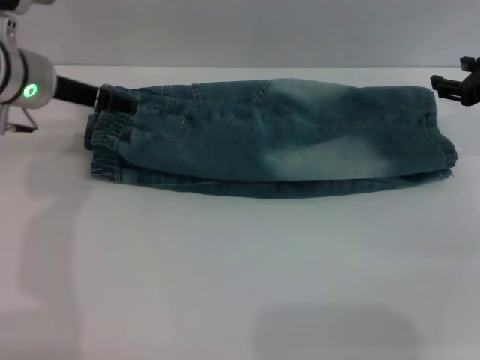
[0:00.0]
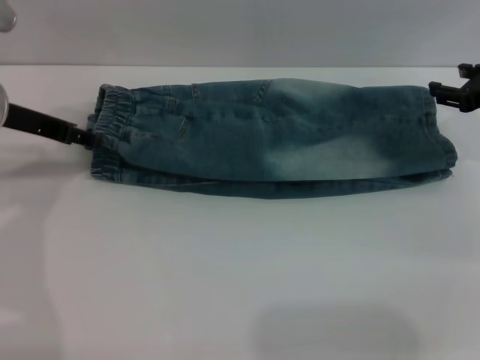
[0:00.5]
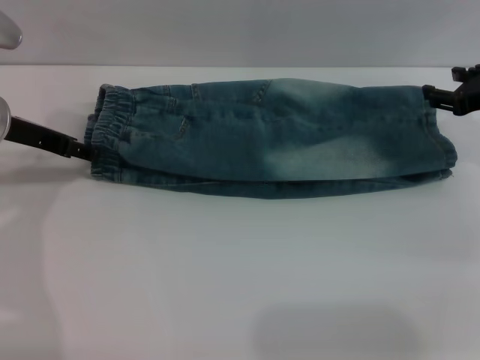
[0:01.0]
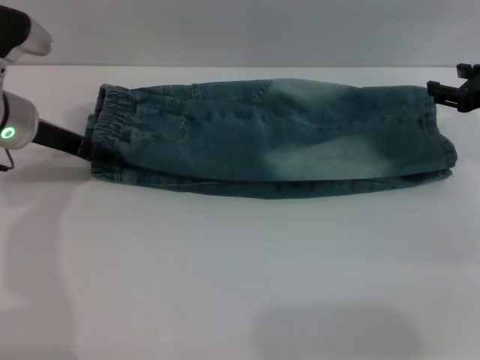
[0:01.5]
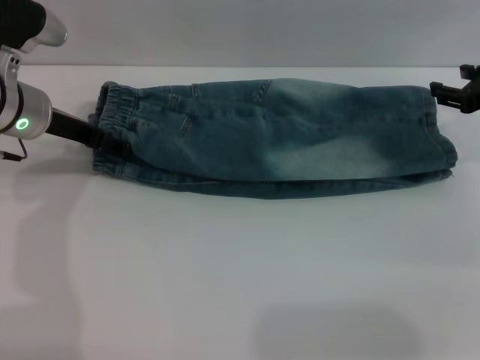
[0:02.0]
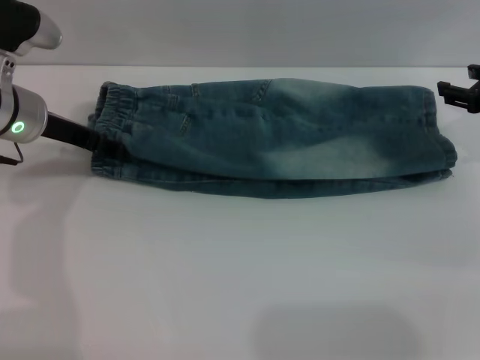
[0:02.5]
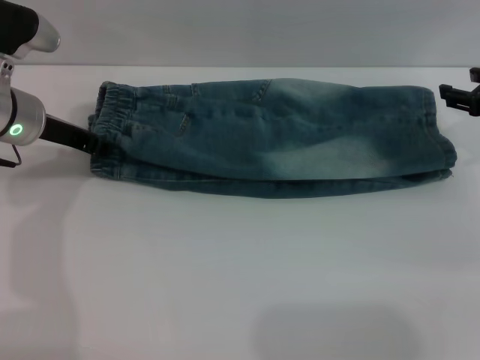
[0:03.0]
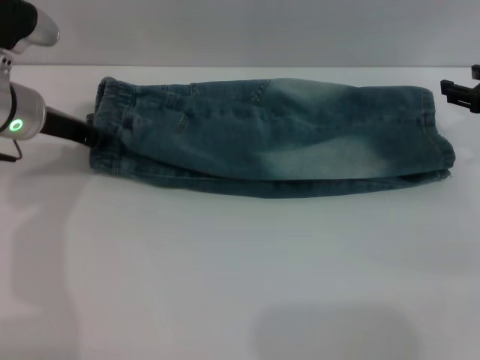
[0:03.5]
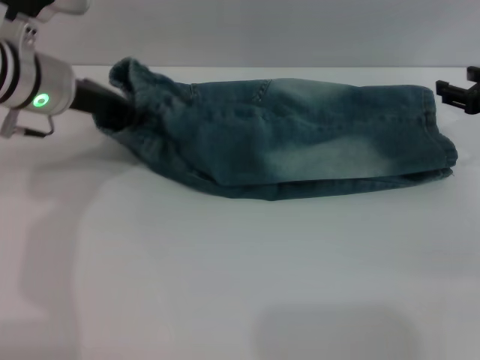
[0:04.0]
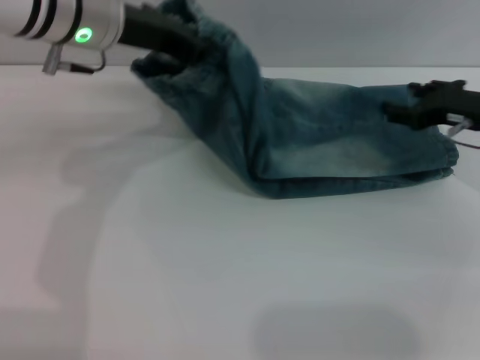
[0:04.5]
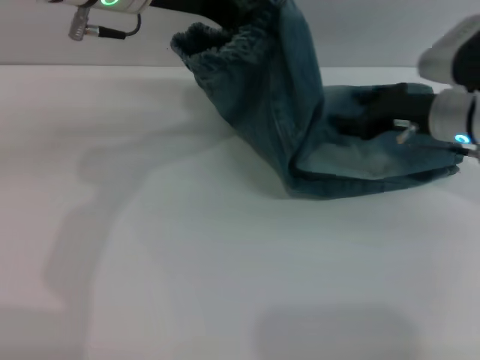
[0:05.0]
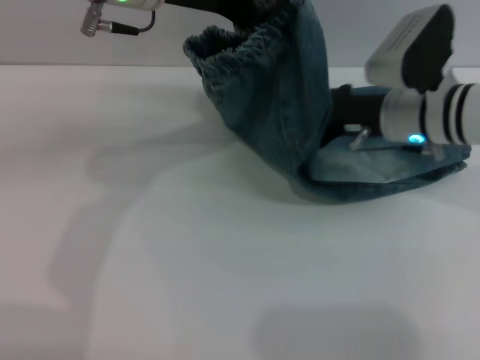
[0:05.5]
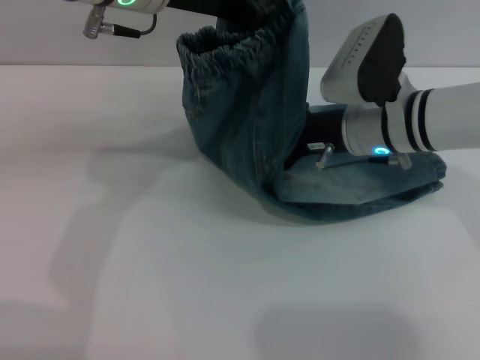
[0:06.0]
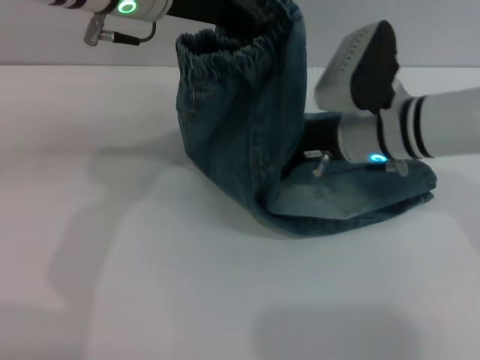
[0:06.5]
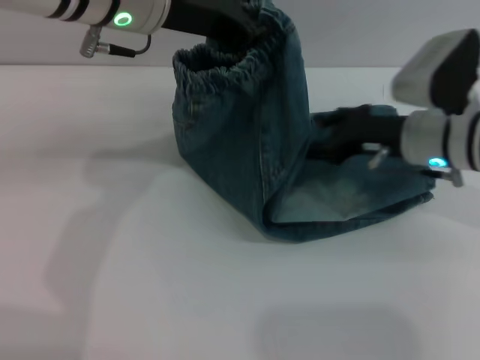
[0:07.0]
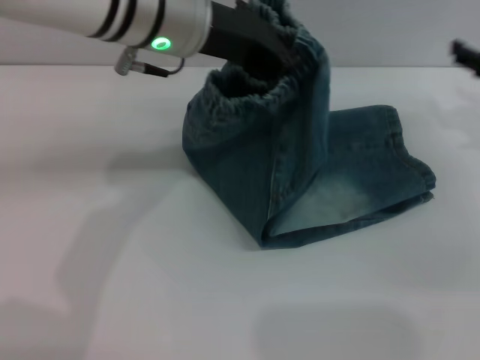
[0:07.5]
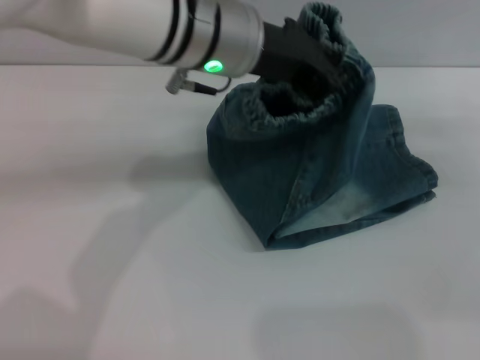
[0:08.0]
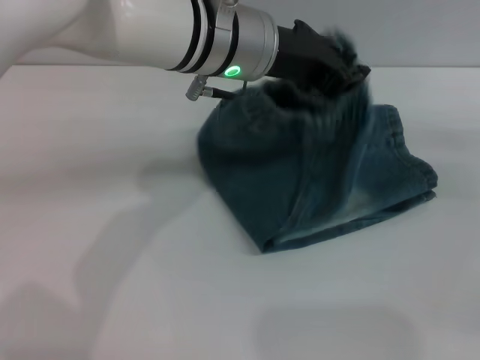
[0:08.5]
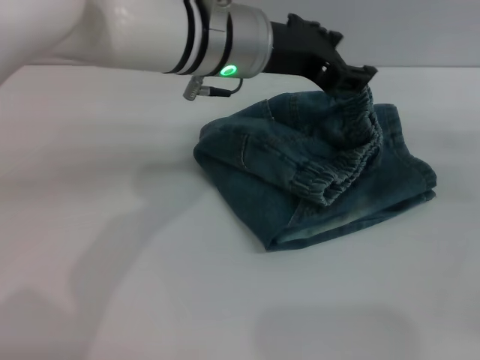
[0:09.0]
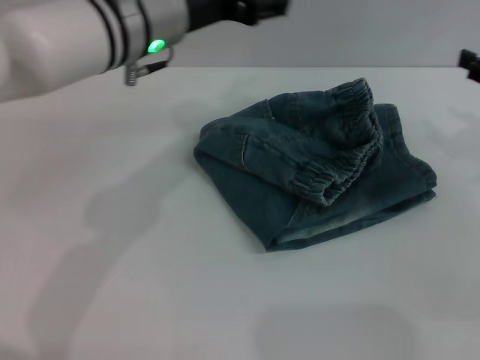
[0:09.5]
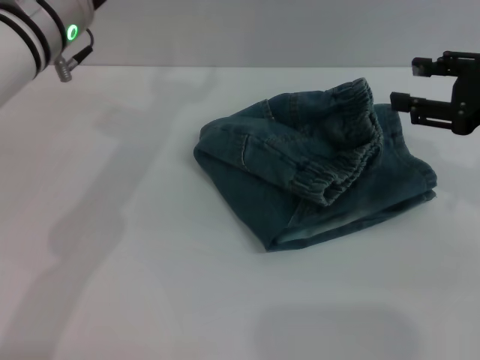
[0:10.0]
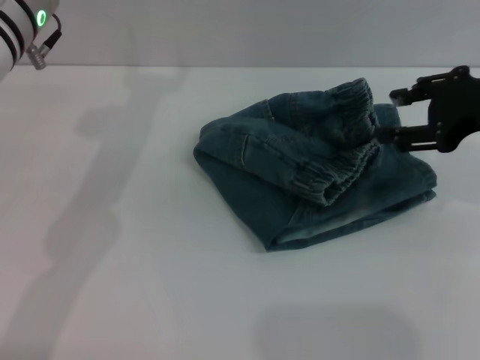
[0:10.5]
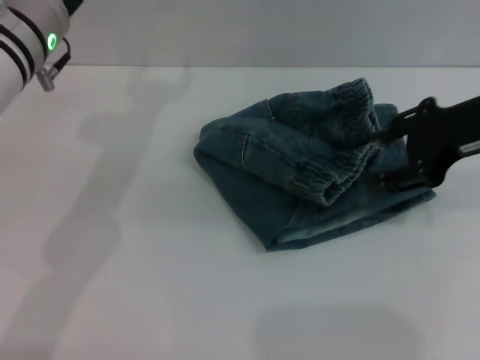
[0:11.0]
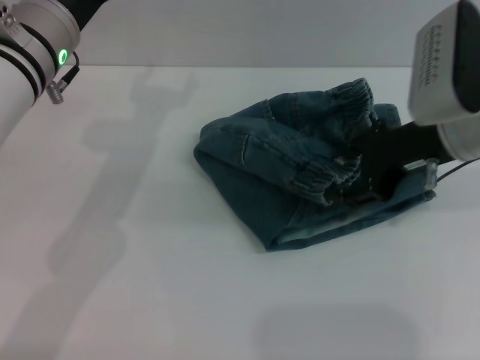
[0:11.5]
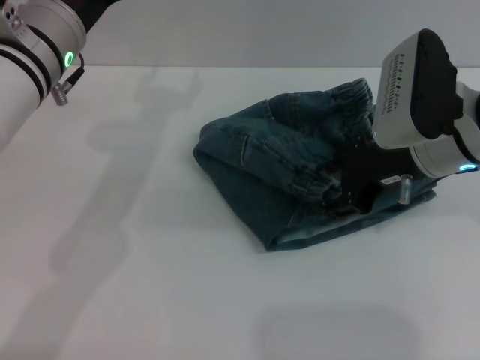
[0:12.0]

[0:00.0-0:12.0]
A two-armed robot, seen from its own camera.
Step, 0:00.5 to 0:09.0: Fold the pants from left to right with the left gripper.
0:00.0 to 0:02.0: The grippers make only small movements.
0:02.0 to 0:04.0: The left gripper changes place by some 5 cm, and closes.
0:04.0 to 0:06.0: The left gripper is displaced upward and to the right by about 15 cm. The right gripper shifts some 20 cm to the left.
0:06.0 to 0:08.0: The left gripper is displaced to the right by about 5 cm, while the right gripper goes some 25 cm to the right.
0:08.0 to 0:10.0: The right gripper goes some 10 cm to the left. The left gripper moves to the left, approximately 10 cm, and opens up.
0:10.0 to 0:12.0: The right gripper is displaced to the left by approximately 10 cm.

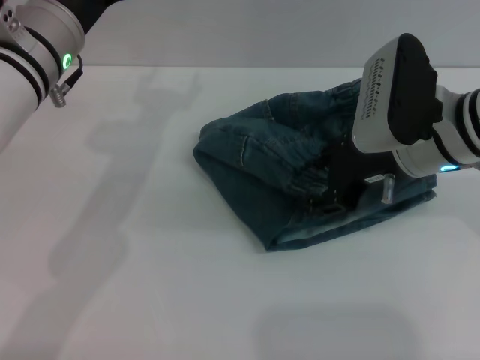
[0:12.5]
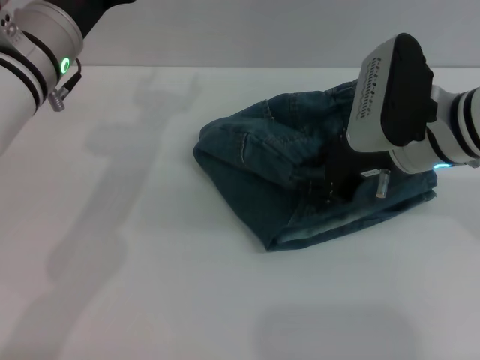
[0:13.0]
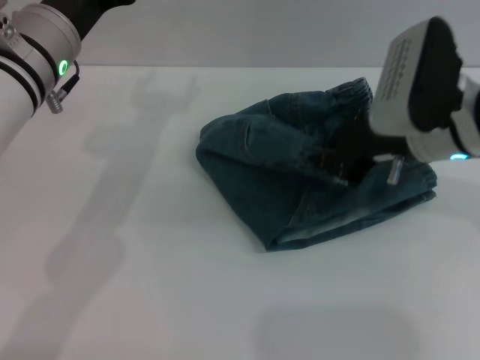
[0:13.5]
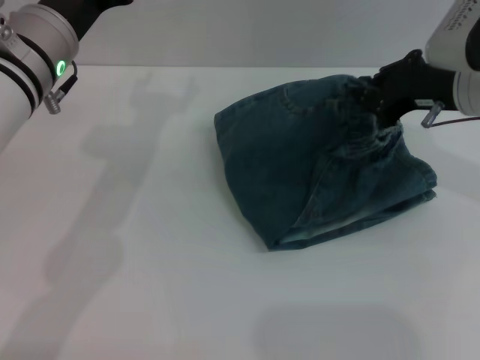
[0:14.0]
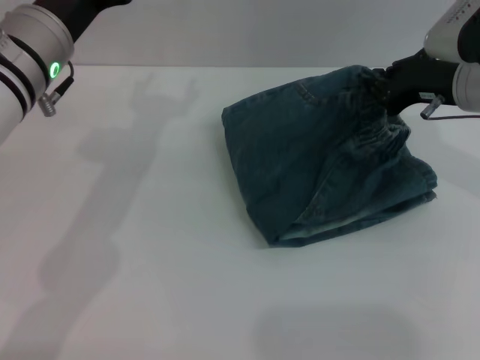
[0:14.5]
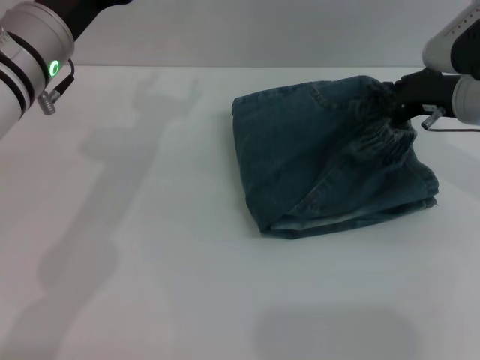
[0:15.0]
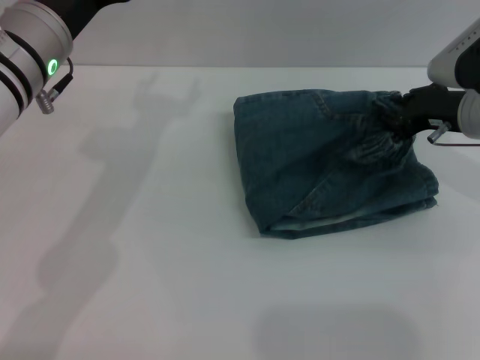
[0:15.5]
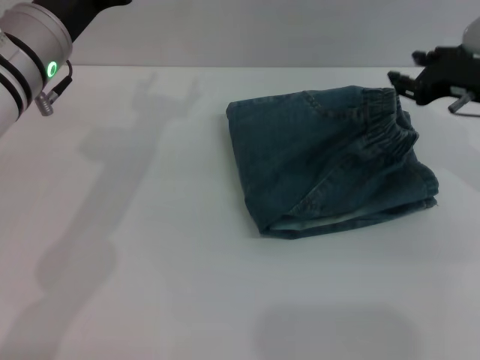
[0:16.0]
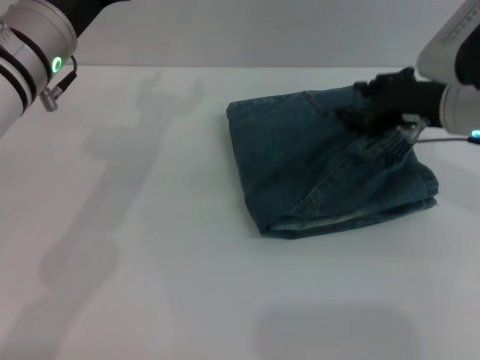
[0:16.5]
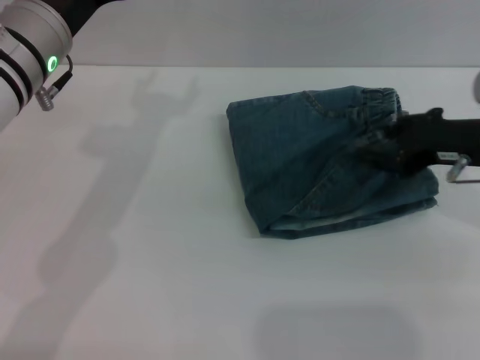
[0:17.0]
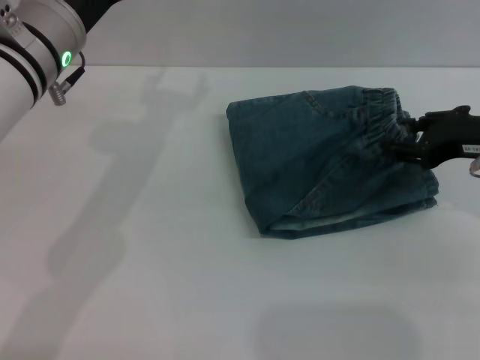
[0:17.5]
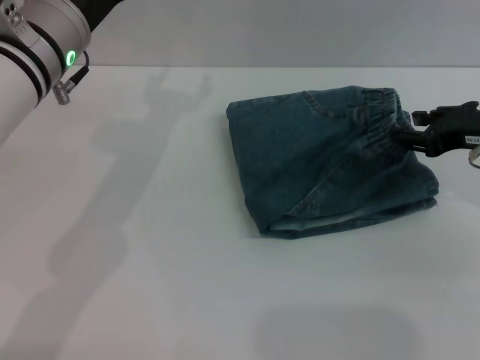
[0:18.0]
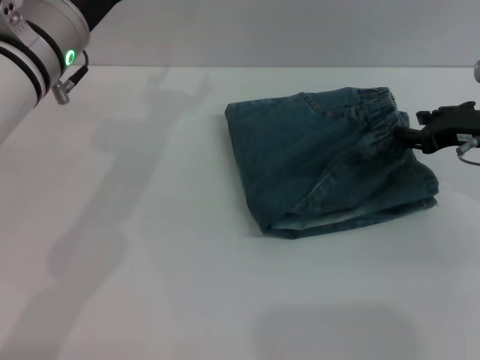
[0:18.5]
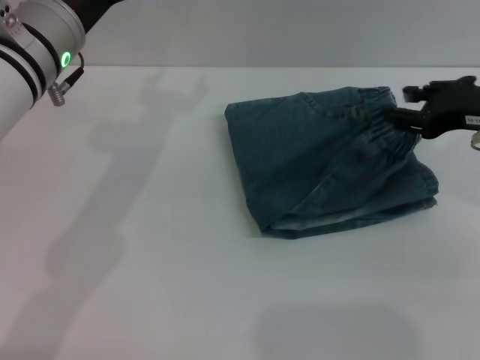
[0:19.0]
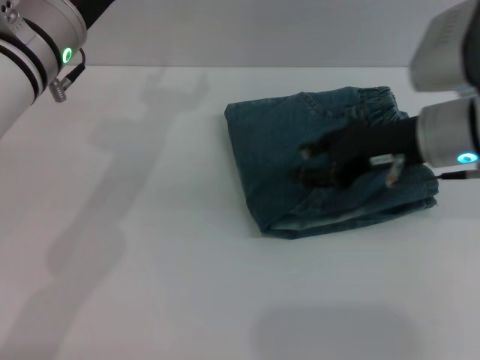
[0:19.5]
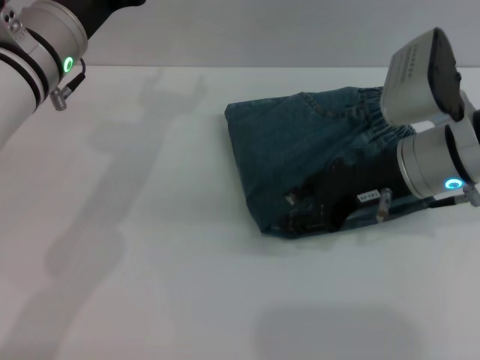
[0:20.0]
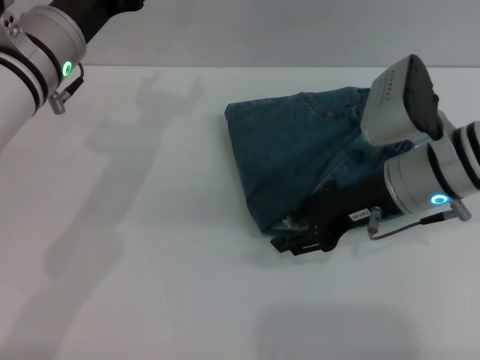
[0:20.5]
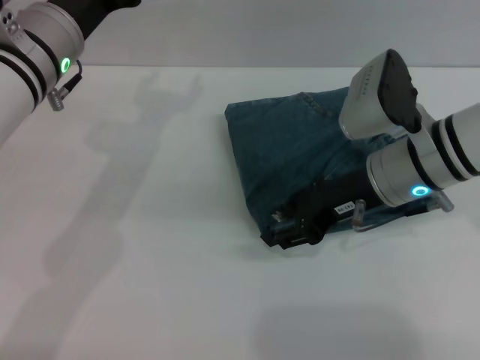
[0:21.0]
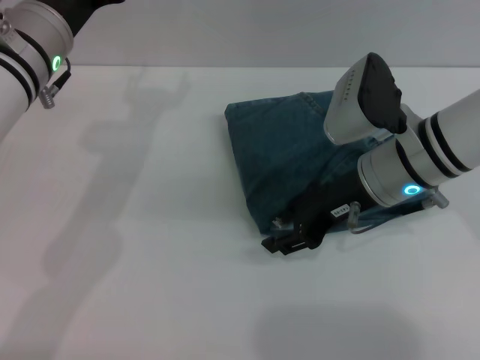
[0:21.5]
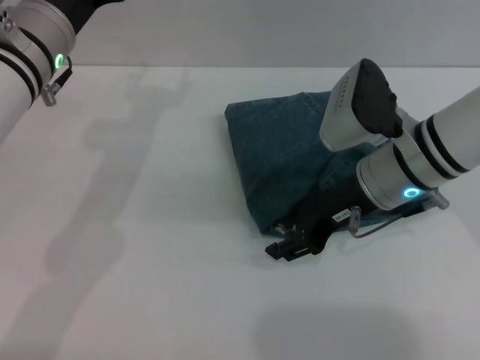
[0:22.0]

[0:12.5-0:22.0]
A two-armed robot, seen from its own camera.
0:12.5 to 0:14.5: The right gripper shifts about 5 cm to the right, and closes up.
0:14.5 to 0:16.5: The right gripper opens up.
0:16.5 to 0:18.0: The right gripper travels to the right by some 5 cm.
0:18.0 to 0:20.0: The right gripper is displaced to the left by some 10 cm.
0:20.0 to 0:22.0: The grippers stay close to where they were, moving slightly.

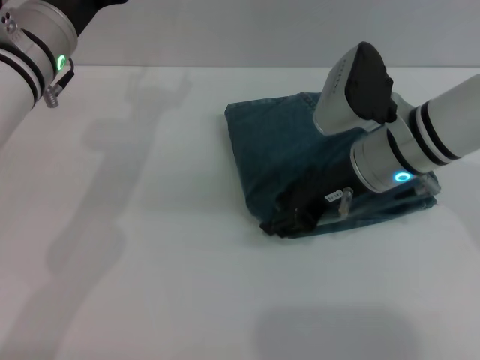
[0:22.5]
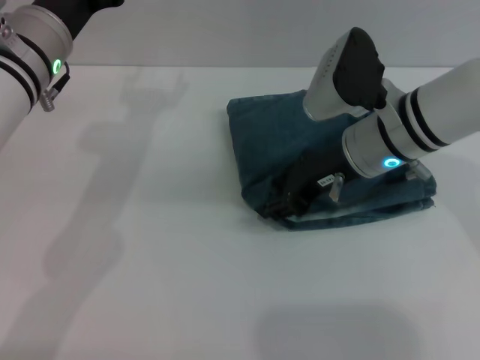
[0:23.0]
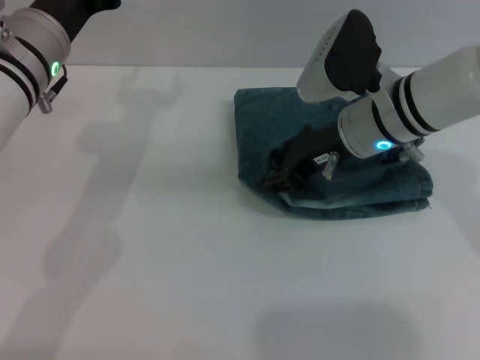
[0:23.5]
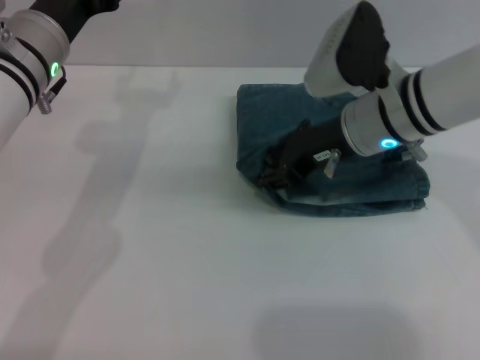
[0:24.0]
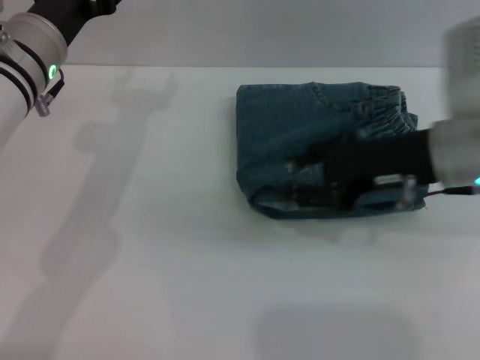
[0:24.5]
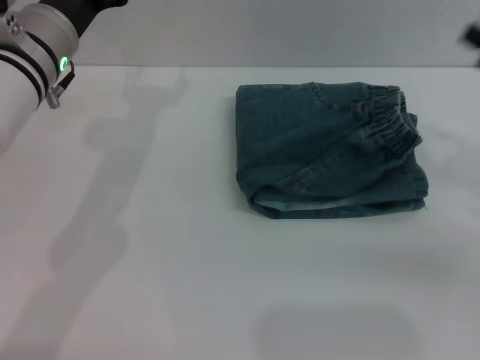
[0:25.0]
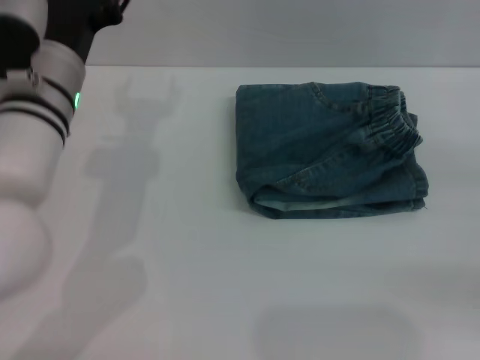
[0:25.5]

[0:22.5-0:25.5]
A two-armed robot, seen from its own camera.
0:22.5 to 0:24.0: There are only small adjustments of the grippers.
0:24.0 to 0:25.5: The right gripper goes approximately 30 cm to the right and backward.
